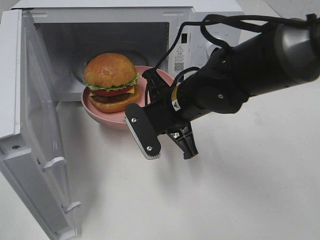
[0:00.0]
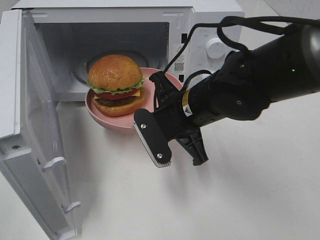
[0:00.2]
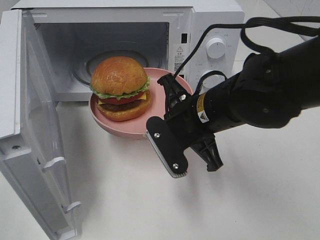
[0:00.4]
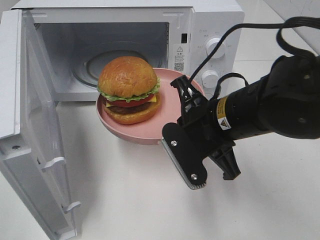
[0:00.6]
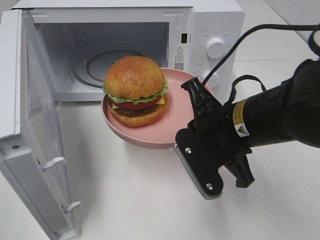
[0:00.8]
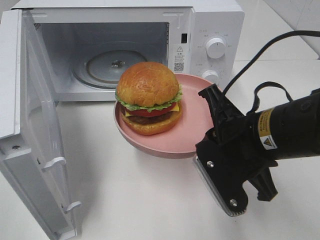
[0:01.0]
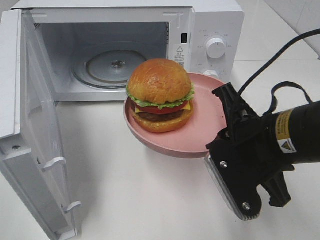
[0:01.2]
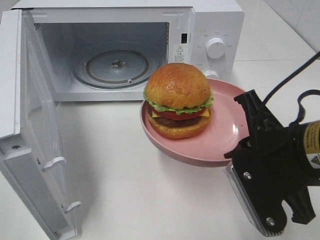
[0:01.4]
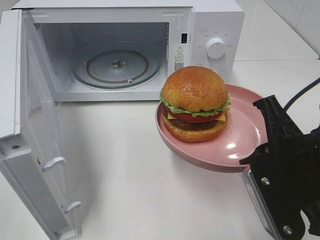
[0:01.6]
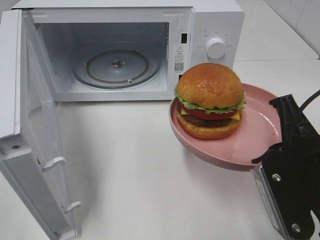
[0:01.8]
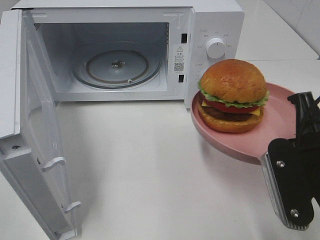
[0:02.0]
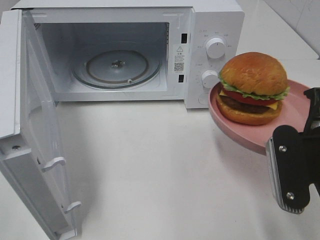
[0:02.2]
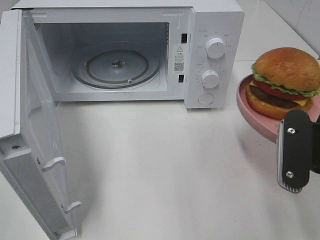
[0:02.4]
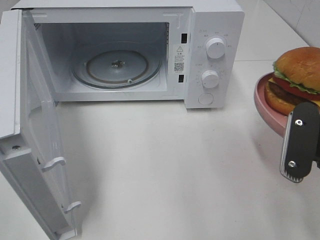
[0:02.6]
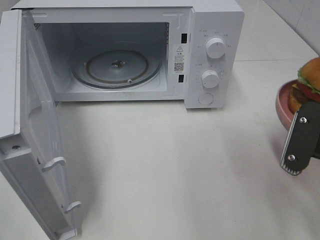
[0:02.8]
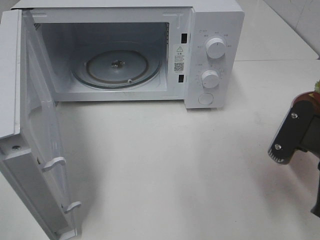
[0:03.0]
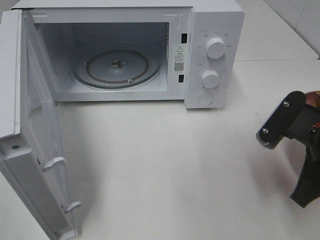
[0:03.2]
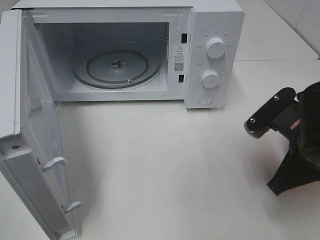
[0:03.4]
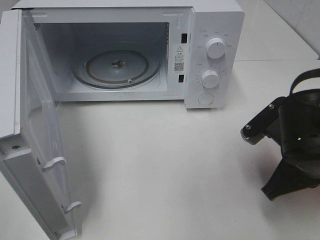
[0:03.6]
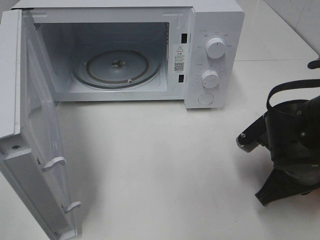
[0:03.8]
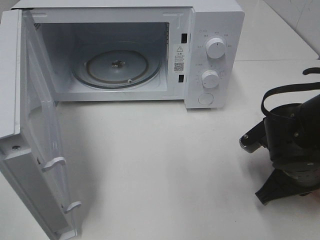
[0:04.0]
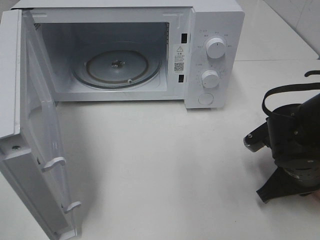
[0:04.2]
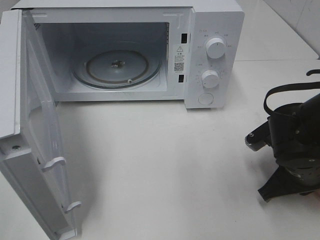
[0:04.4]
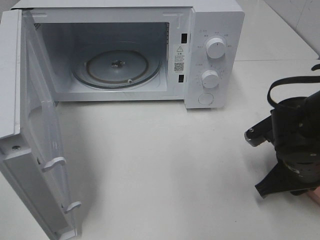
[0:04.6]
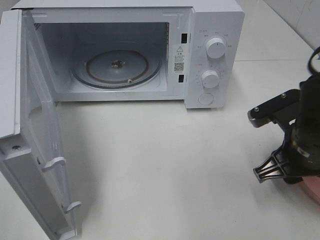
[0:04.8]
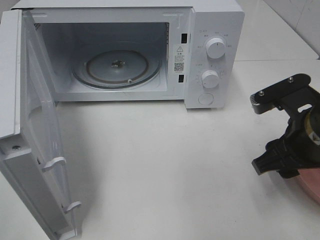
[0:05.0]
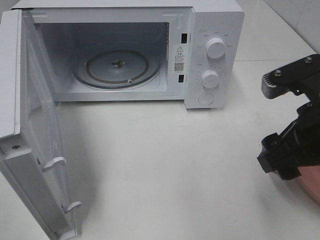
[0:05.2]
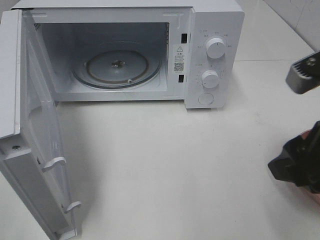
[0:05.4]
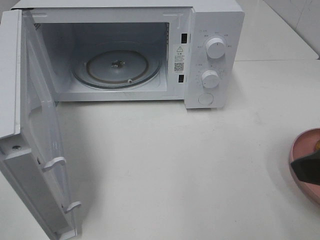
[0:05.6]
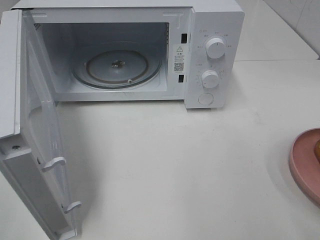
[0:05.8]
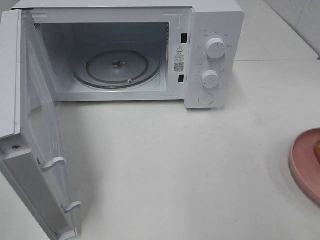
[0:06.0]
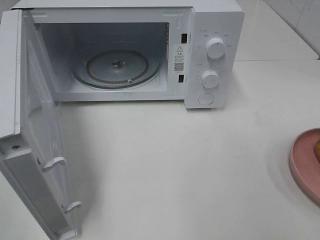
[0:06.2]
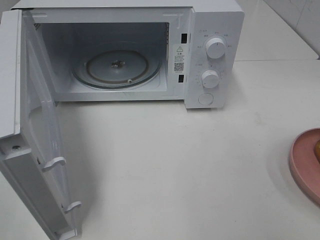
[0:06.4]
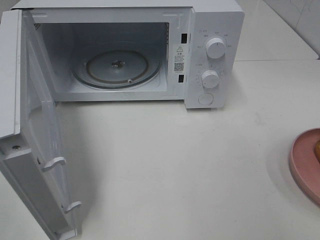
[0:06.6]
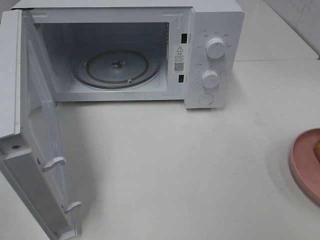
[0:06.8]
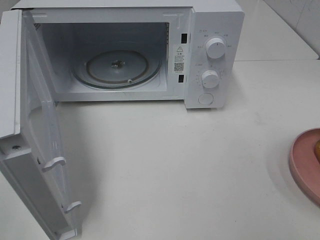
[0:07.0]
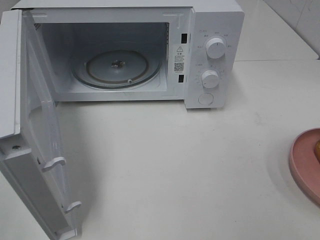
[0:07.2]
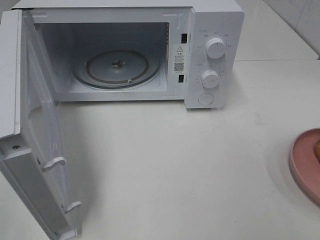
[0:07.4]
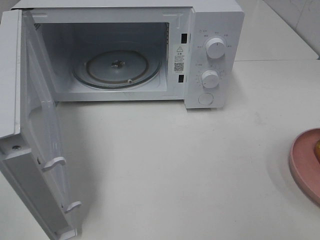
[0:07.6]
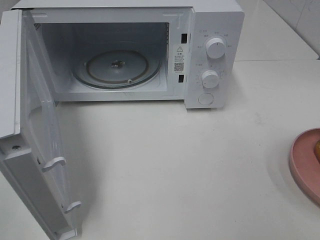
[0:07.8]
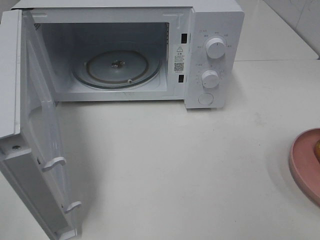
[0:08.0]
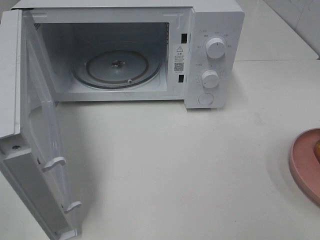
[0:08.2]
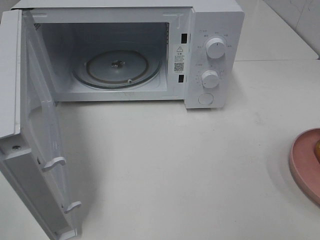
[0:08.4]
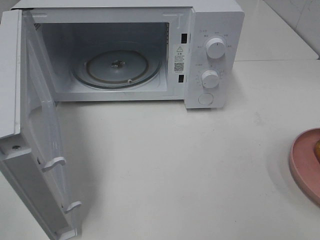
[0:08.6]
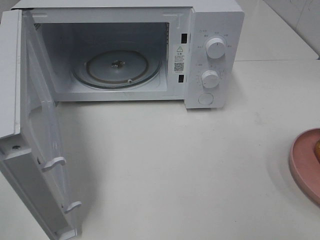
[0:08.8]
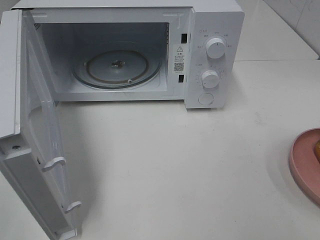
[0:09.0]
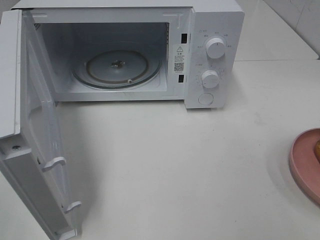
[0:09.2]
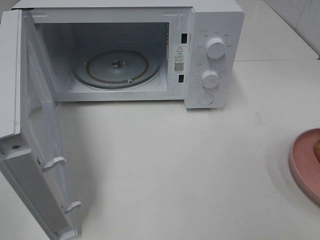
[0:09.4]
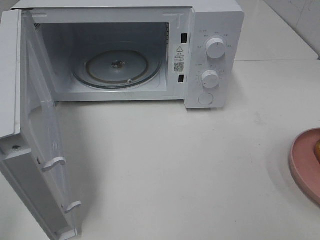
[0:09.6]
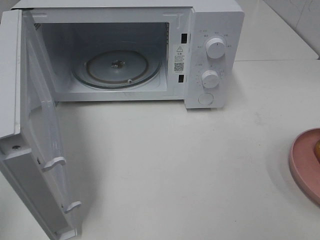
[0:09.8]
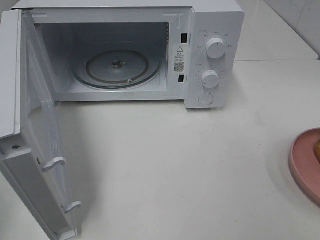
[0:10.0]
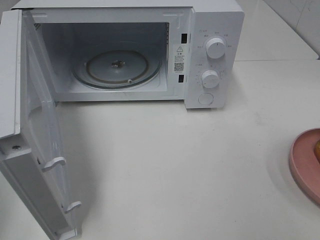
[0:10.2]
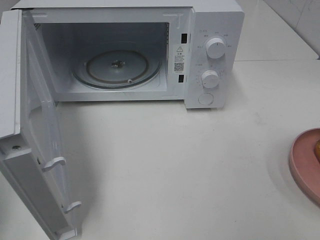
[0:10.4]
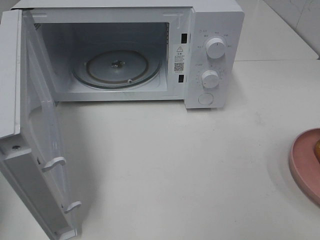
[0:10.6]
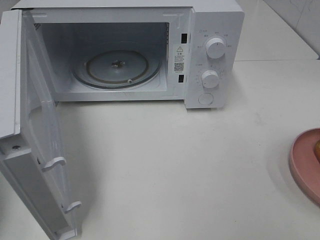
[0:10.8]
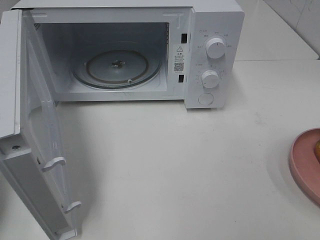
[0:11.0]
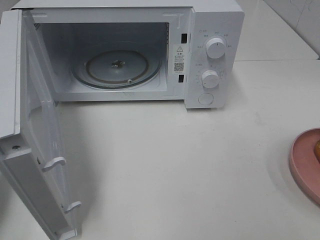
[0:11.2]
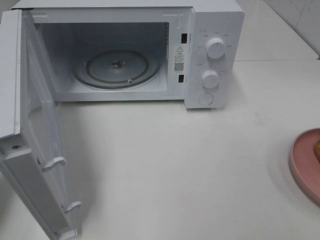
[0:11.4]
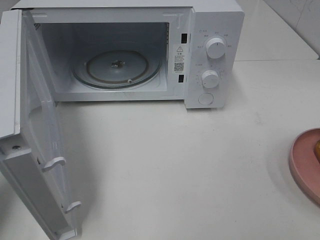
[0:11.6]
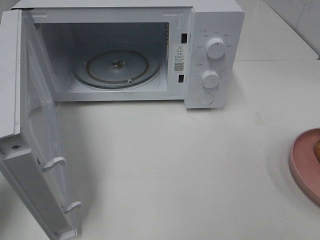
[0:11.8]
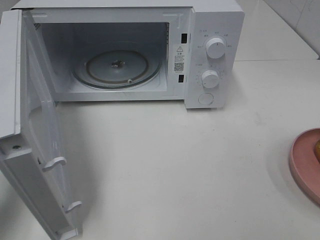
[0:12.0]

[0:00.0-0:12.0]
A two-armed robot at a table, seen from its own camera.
Task of the whole recording: Heat the burger.
Step, 0:00.0 to 0:04.6: Right hand: place the plate on the table.
0:00.0 to 0:01.6: The right gripper goes some 20 cm backward and to the right.
0:03.0 to 0:04.4: The right gripper moves downward and forward, roughly 10 cm.
0:04.4 to 0:06.0: The right gripper is displaced upward and backward by roughly 25 cm, and opens up.
0:07.6 to 0:09.0: Both grippers stay about where they are.
0:10.4 to 0:12.0: The left gripper shifts about 15 cm forward, downward and to the right.

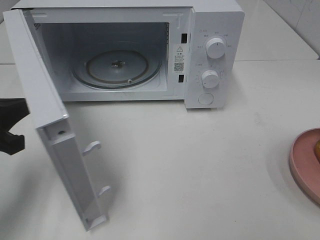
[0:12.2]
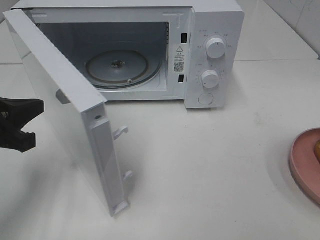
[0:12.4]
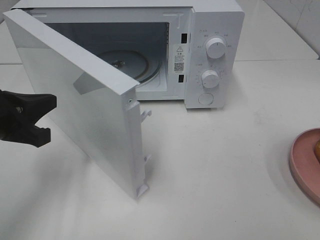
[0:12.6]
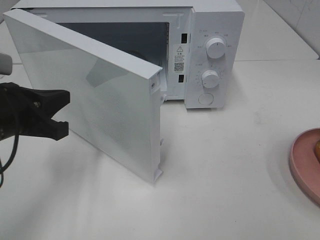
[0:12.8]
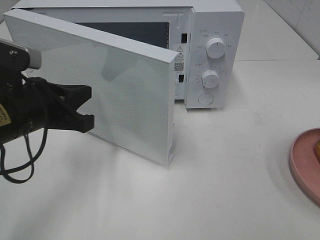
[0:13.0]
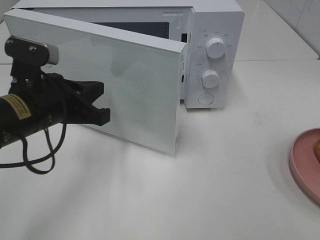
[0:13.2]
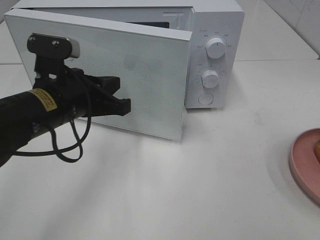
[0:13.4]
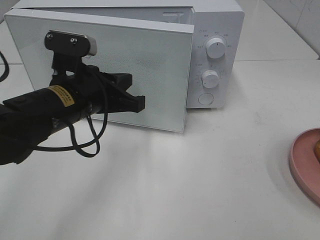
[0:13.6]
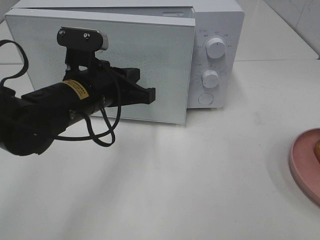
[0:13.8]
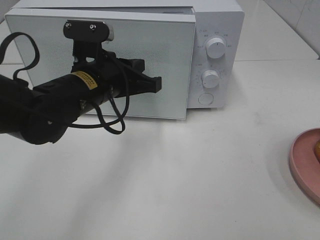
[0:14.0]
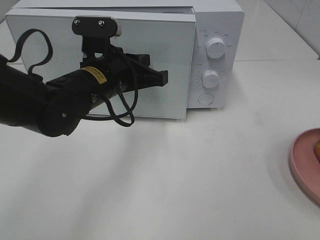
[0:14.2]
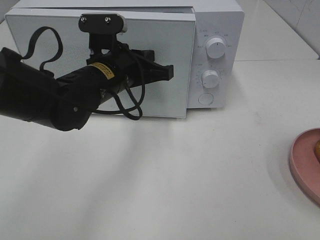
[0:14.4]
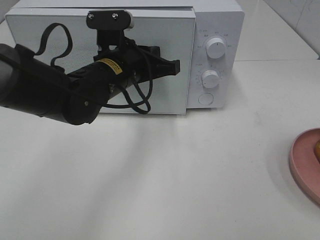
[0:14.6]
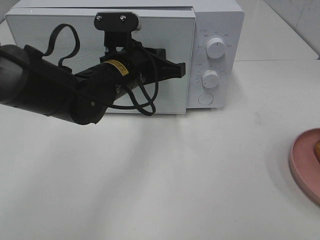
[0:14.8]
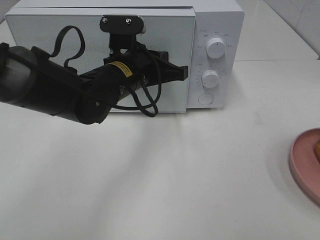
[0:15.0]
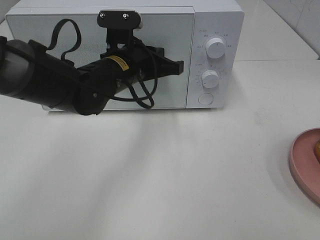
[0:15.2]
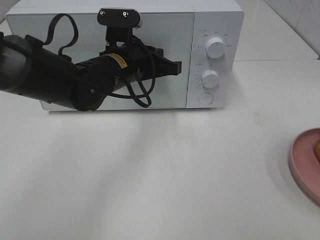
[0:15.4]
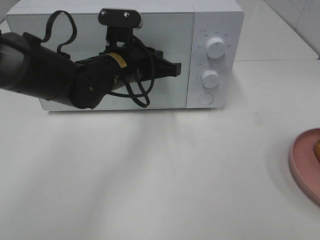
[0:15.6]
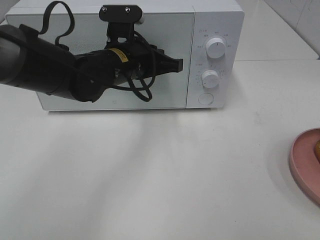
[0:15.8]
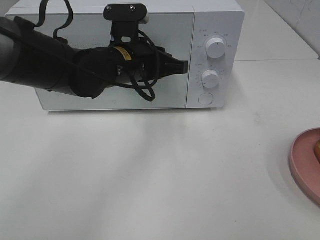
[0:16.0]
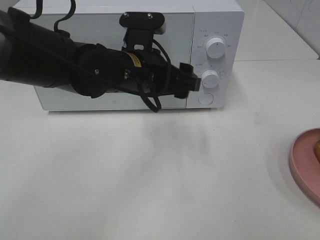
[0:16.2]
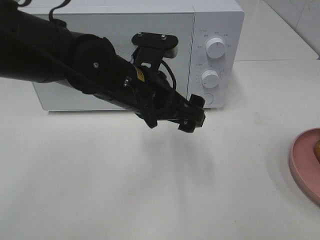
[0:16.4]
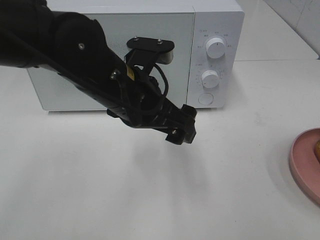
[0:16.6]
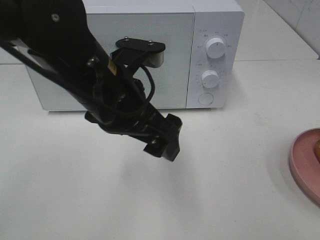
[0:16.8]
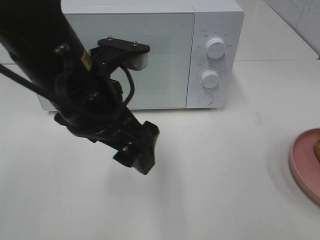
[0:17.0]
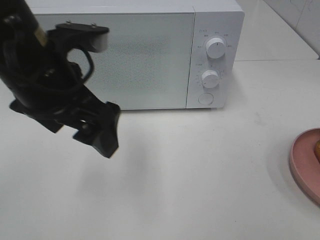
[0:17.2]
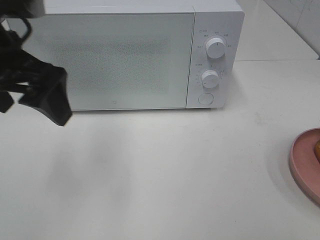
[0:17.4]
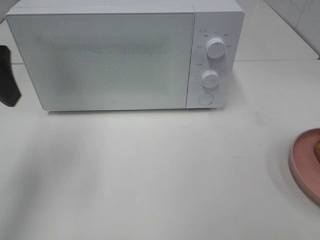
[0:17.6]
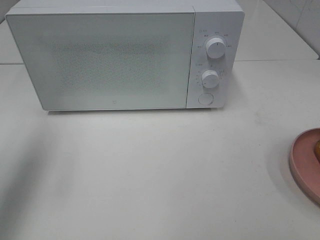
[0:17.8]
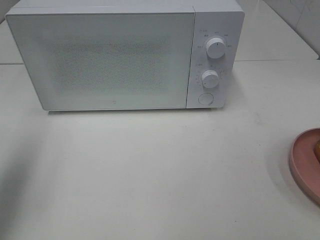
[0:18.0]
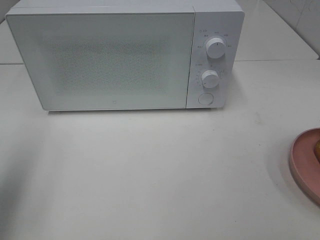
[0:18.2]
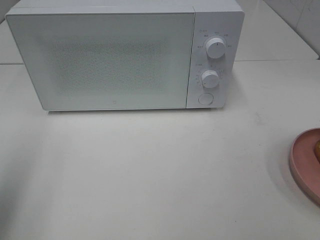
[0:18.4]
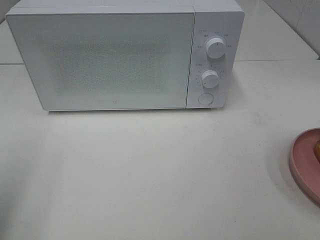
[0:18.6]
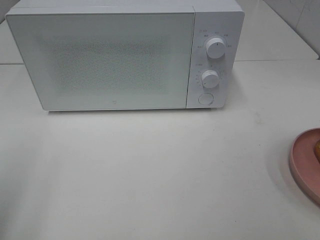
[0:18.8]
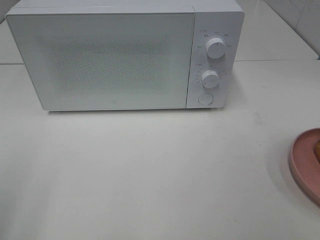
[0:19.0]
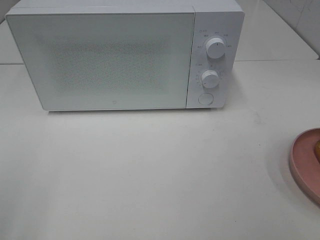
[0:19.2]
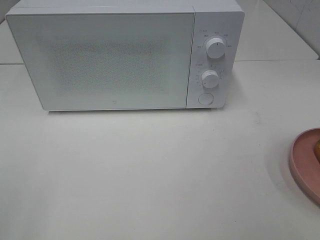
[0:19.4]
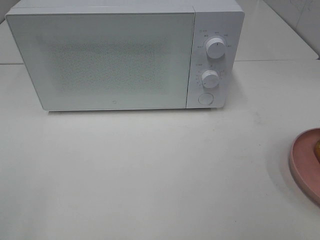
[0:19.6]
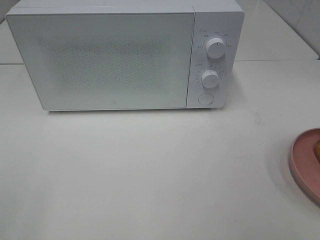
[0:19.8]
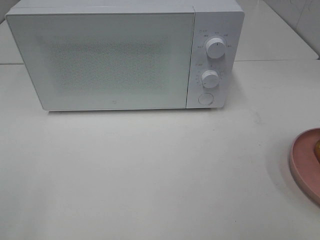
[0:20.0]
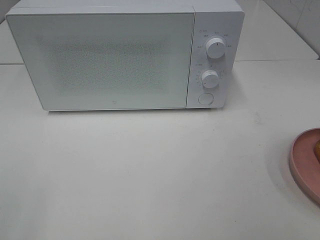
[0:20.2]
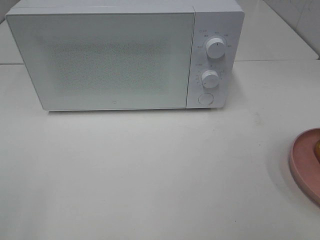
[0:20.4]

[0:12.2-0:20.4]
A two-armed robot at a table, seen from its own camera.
Task of the whole recording: Heat the burger.
Step, 0:12.2 to 0:15.8: Left hand: close the microwave door.
0:12.2 to 0:13.8: The left gripper is displaced to the right and forward by roughly 20 cm.
0:13.8 to 0:15.4: The left gripper is displaced forward by approximately 5 cm.
0:15.4 to 0:17.2: The left gripper goes roughly 20 cm backward, upward and to the left, and opens its fingers.
0:17.2 to 0:18.8: The left gripper shifts some 25 cm to the left and backward.

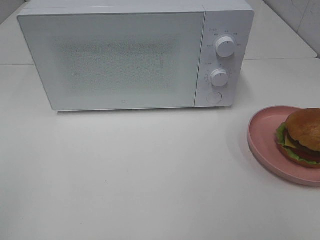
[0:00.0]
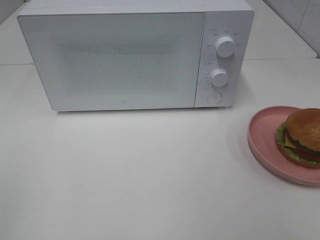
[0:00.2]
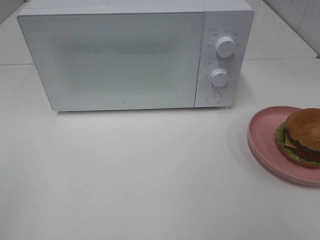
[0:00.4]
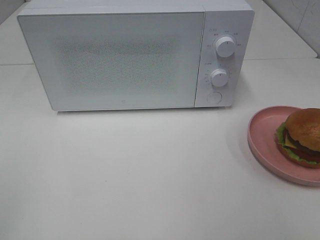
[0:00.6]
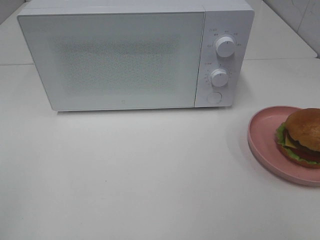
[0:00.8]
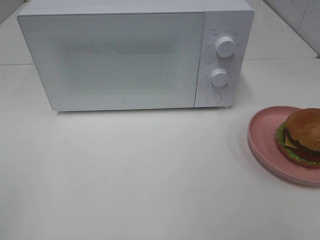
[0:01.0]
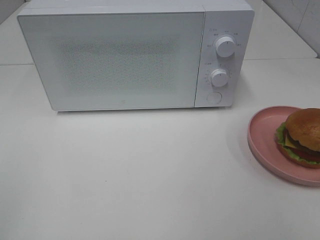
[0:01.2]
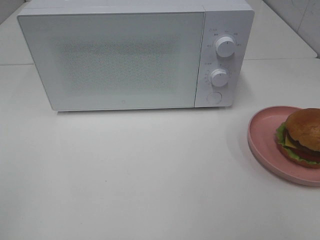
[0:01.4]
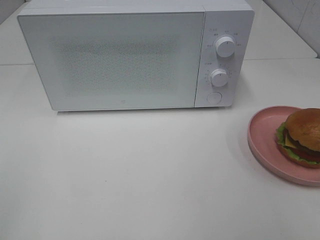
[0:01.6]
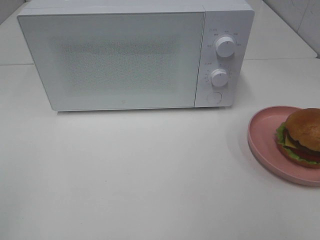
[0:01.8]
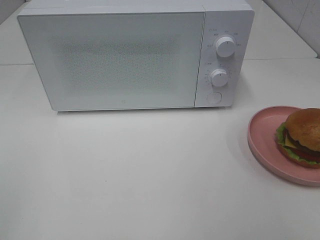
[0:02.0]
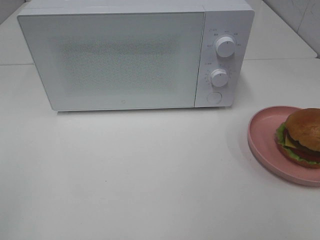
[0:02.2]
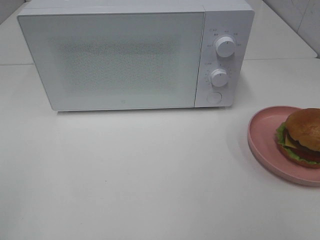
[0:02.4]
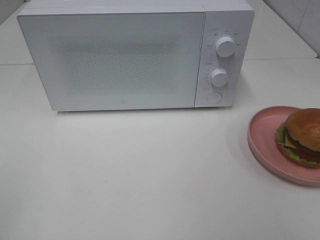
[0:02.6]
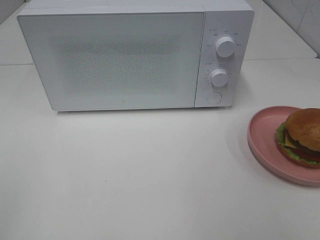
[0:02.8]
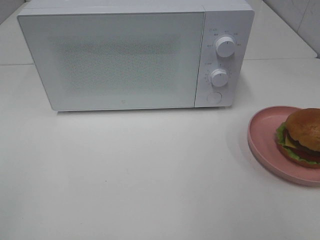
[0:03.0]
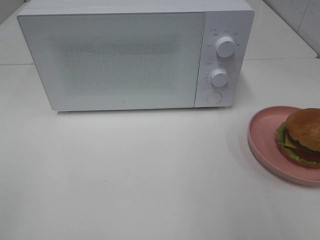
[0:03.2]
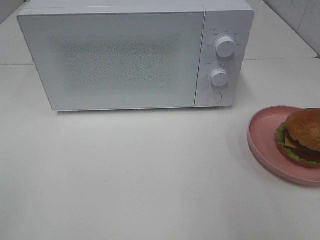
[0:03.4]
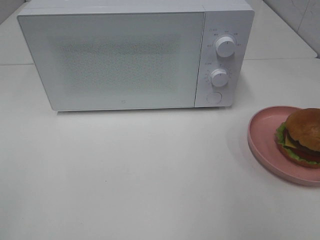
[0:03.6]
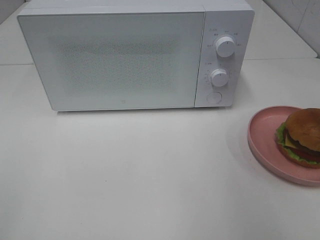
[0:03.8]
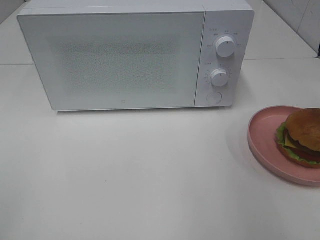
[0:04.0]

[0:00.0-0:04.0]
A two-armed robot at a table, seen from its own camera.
Task of the whole recording: Heat the burger.
0:00.0 to 0:02.6: Neither gripper changes place.
